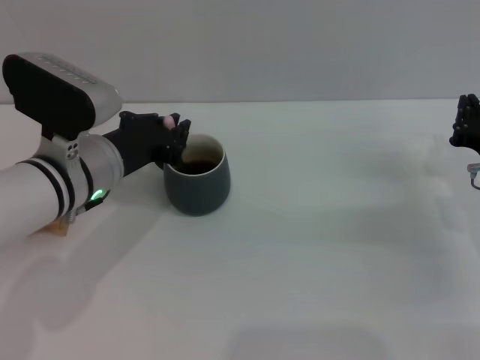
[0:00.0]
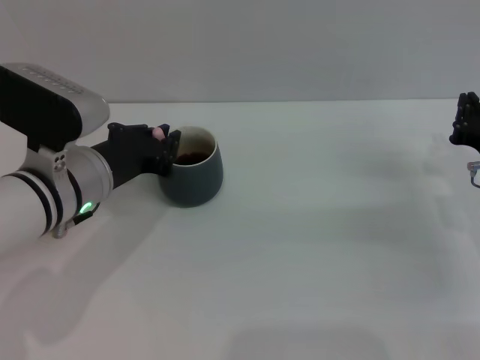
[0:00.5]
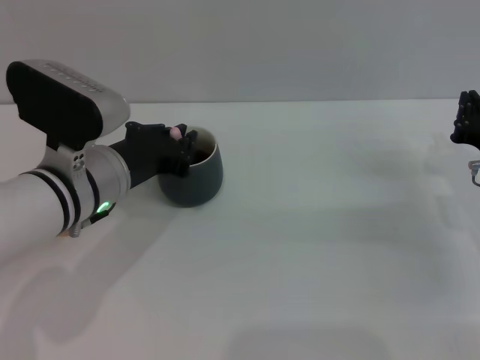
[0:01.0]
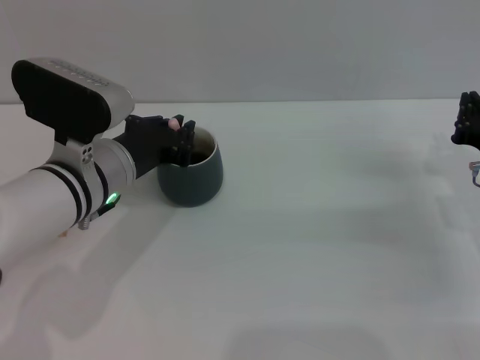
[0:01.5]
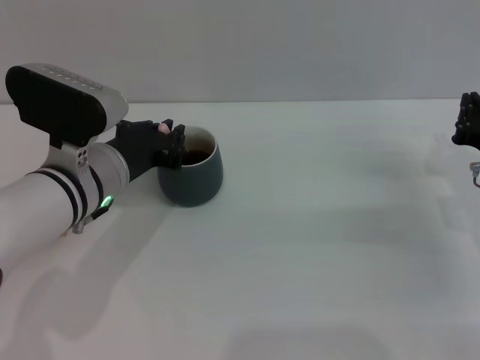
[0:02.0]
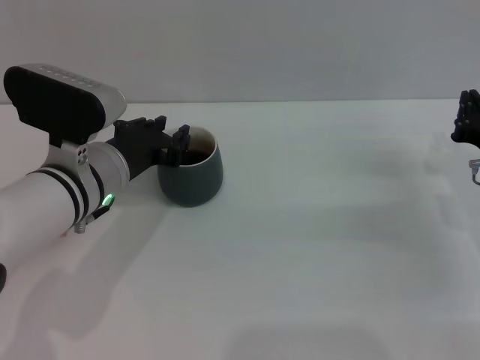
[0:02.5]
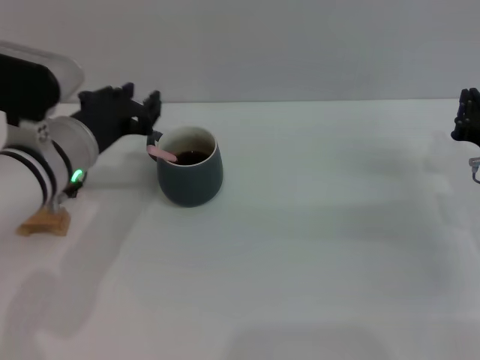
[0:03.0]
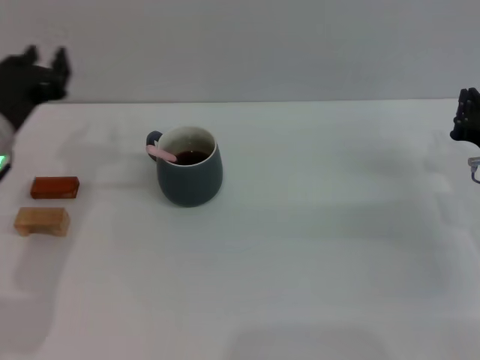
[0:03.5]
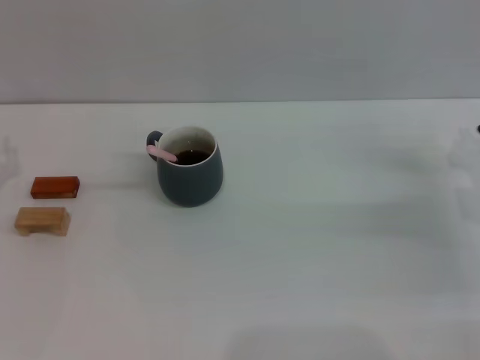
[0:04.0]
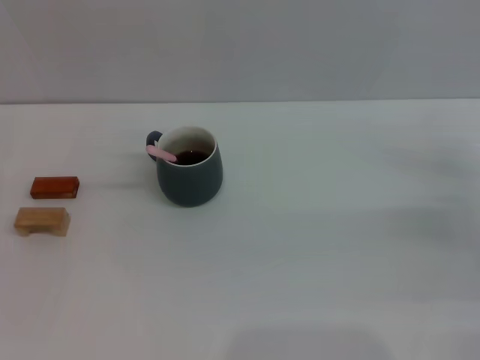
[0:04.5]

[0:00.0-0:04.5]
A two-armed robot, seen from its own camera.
Task of the whole recording: Move the grey cup to the center, lift the pink spoon, stir it three times in the cup, and put the spoon into the cup.
Step, 0:00.0 to 0:02.5: Stir the coffee in the cup with the left gripper.
0:00.0 to 0:02.0: The grippers move only a little.
0:02.0 to 0:04.5: The right gripper heads to the right, covering about 5 cm; the left gripper shifts roughly 20 cm to the left, and opens.

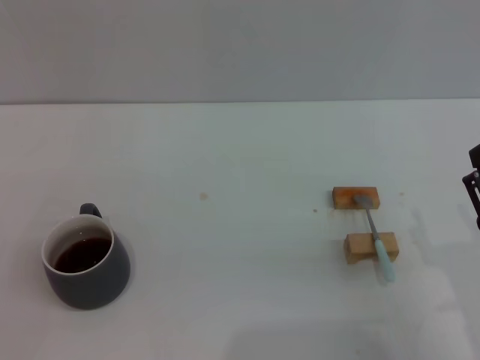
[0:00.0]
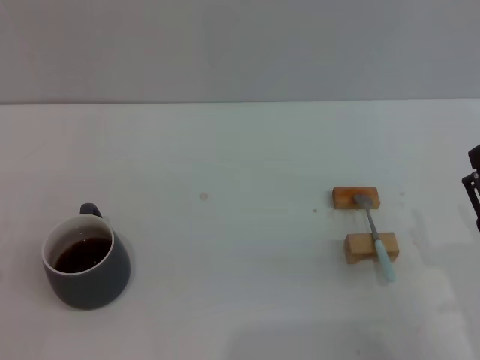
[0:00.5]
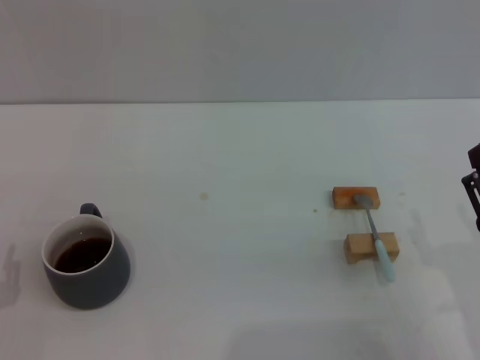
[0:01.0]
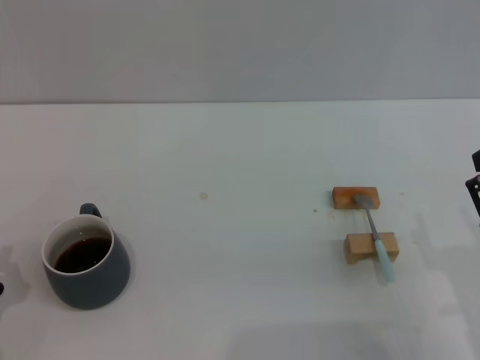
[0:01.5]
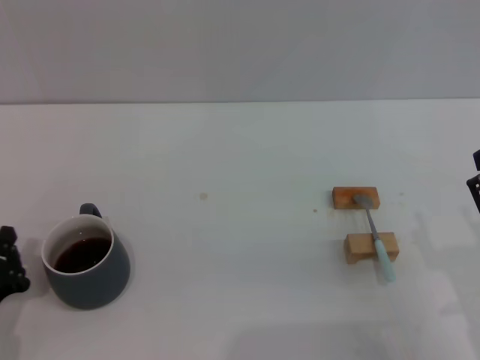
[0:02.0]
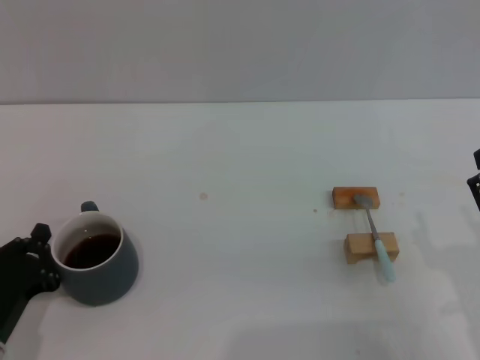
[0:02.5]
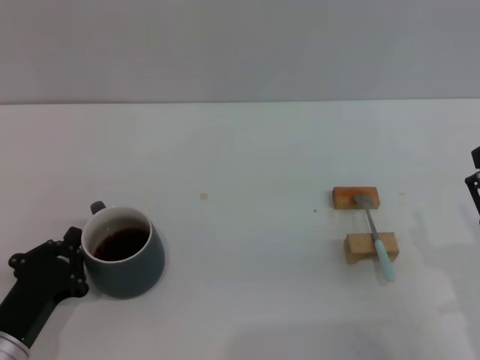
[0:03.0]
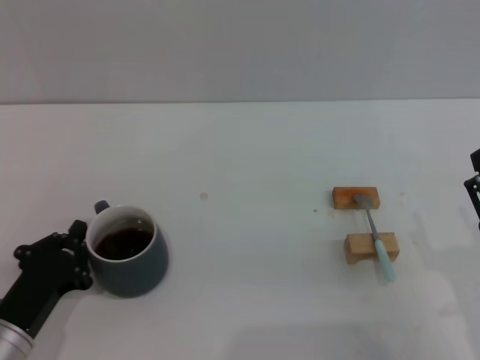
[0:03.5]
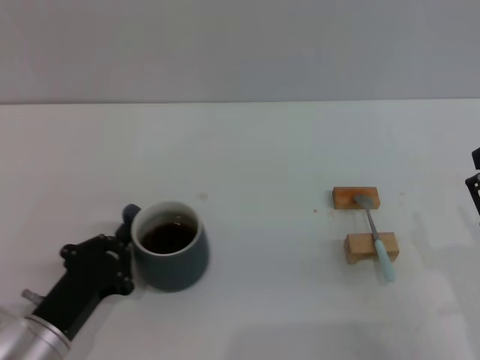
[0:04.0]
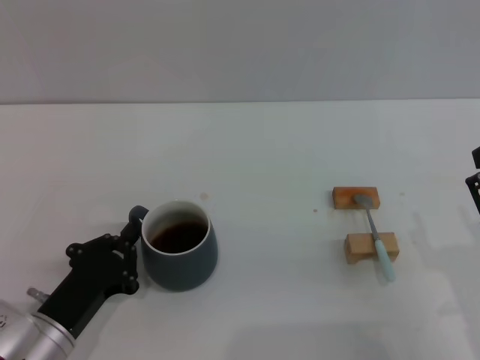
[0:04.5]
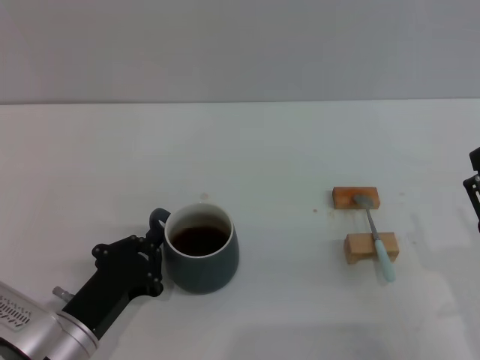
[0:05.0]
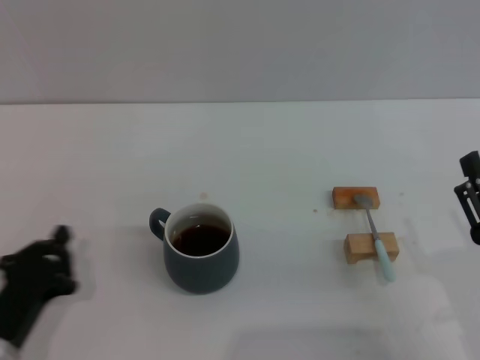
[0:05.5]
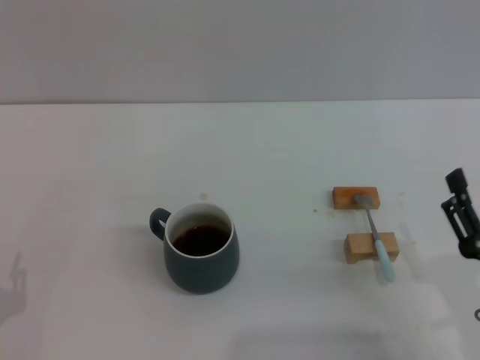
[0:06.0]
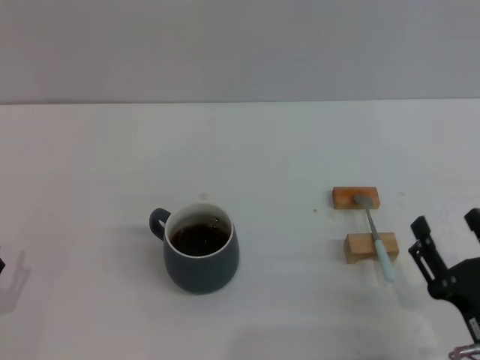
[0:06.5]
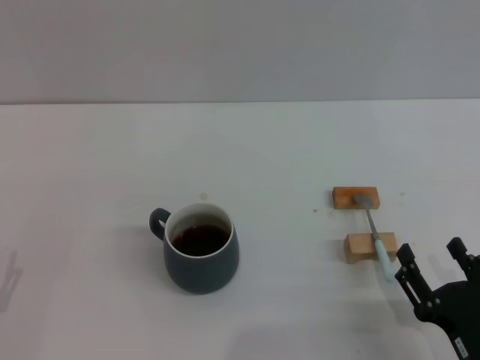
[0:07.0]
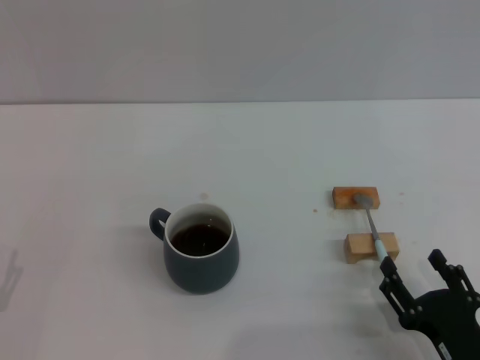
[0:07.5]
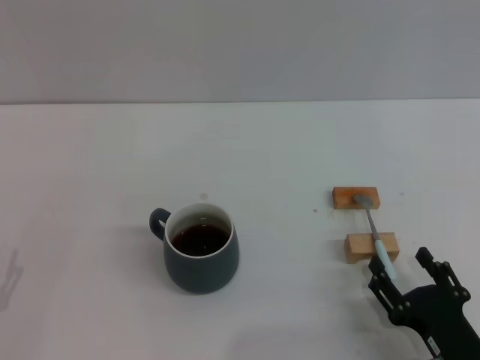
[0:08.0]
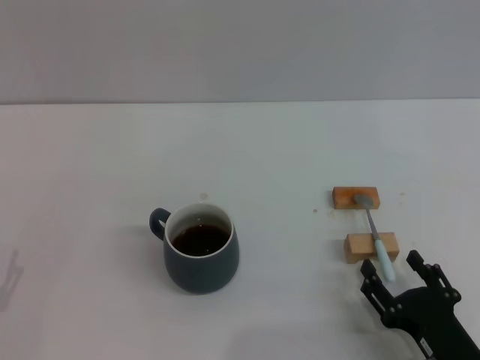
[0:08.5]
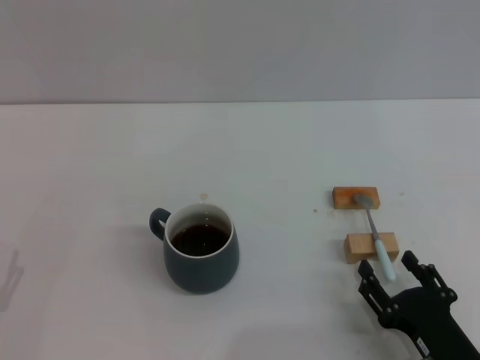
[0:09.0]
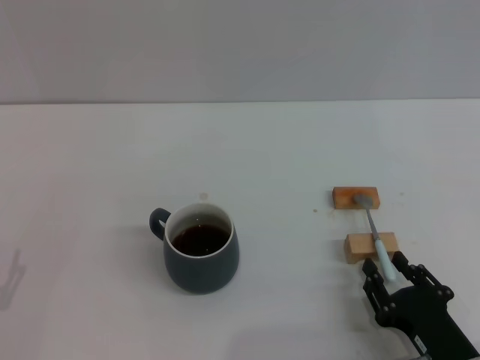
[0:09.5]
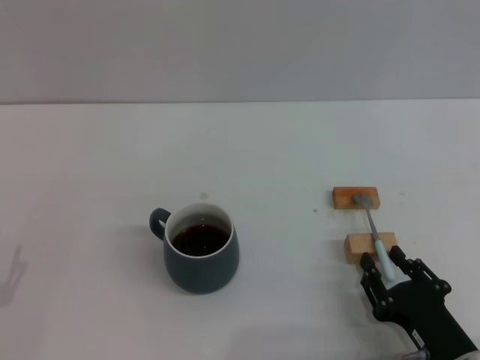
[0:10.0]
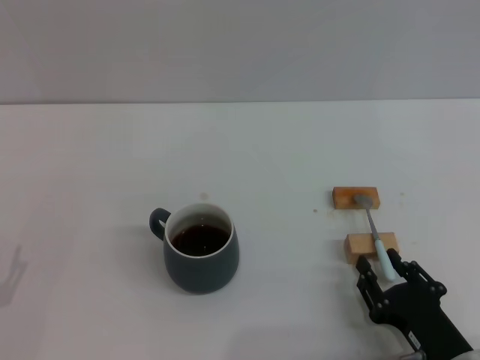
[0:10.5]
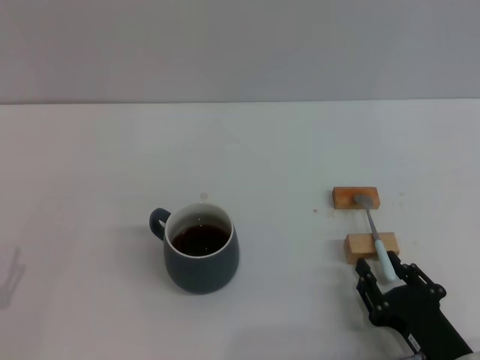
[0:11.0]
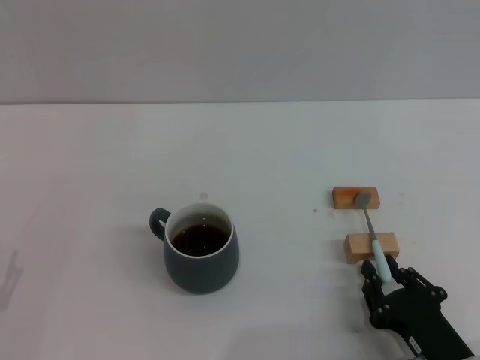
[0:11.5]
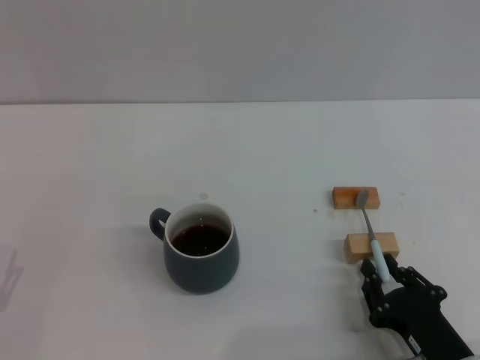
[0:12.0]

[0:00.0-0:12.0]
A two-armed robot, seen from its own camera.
Task of the whole recording: Move the grey cup to the center, lift the blue spoon, stir it three times in the cup, and put the spoon into the cup.
Step, 0:00.0 to 0:05.5: Move the cup with coffee to the center of view with the left gripper.
0:00.0 to 0:02.0: The left gripper moves forward, some 5 cm, and closes up.
0:02.0 to 0:04.0: The left gripper moves to the right, some 5 cm.
0:04.0 to 0:06.0: The left gripper goes approximately 10 cm to the left and backward.
0:06.0 to 0:08.0: The right gripper moves downward, some 5 cm.
0:08.0 to 0:10.0: The right gripper closes its fingers.
0:10.0 to 0:12.0: Both grippers stay about where they are.

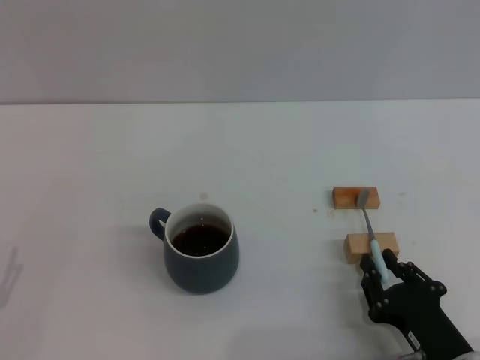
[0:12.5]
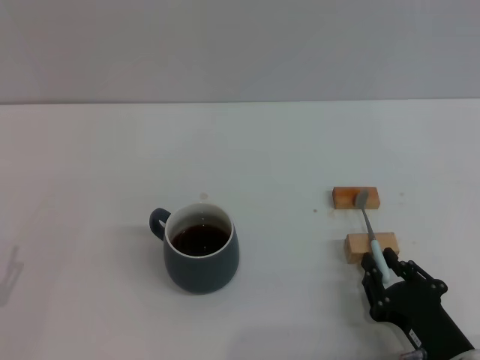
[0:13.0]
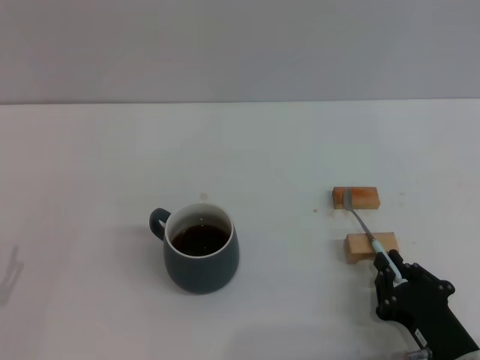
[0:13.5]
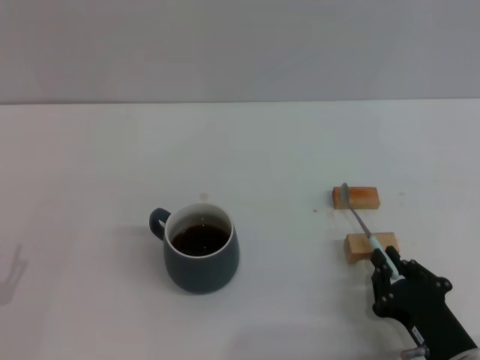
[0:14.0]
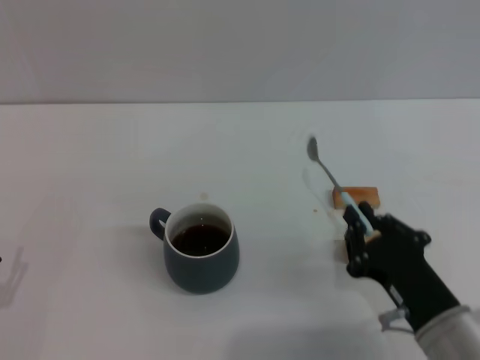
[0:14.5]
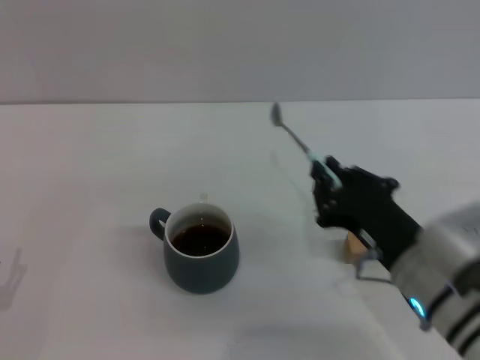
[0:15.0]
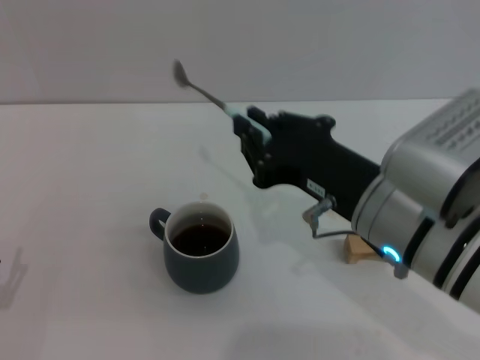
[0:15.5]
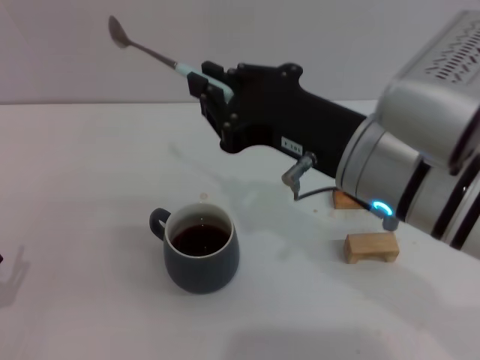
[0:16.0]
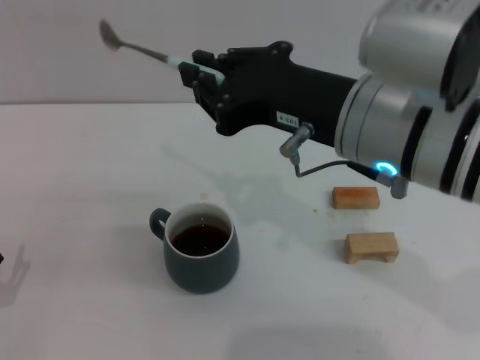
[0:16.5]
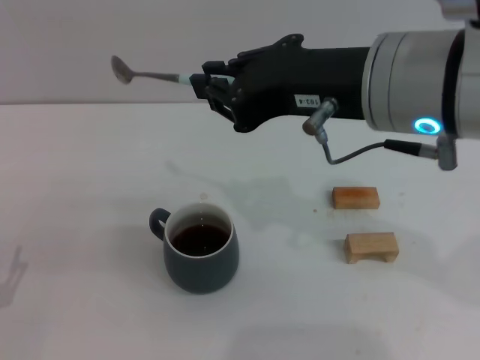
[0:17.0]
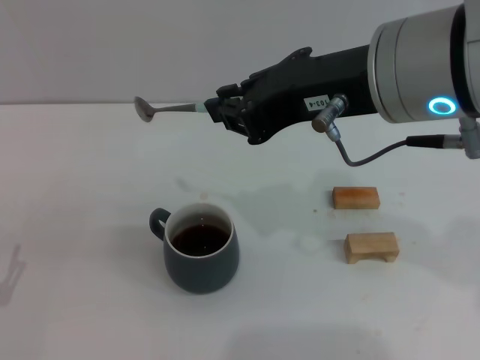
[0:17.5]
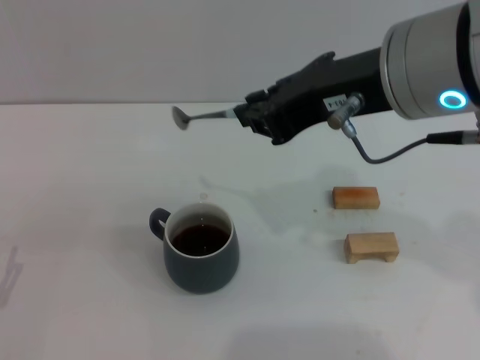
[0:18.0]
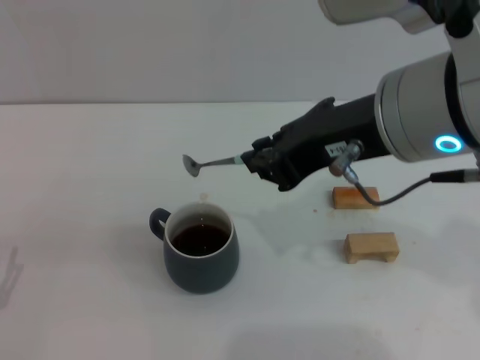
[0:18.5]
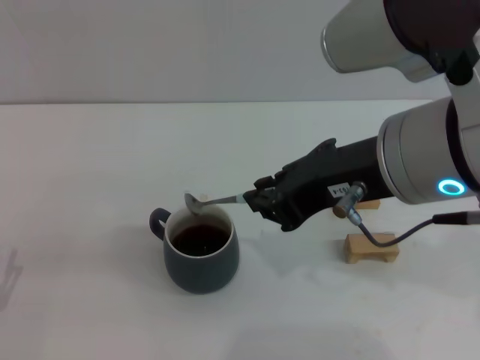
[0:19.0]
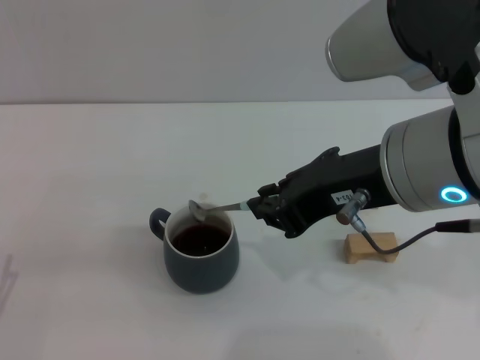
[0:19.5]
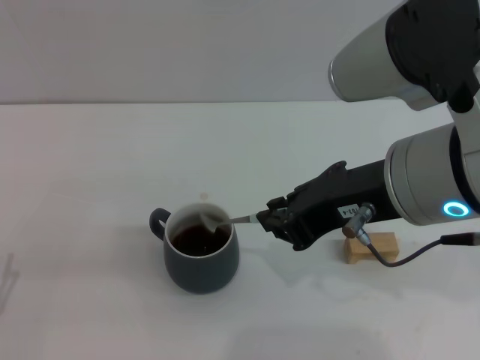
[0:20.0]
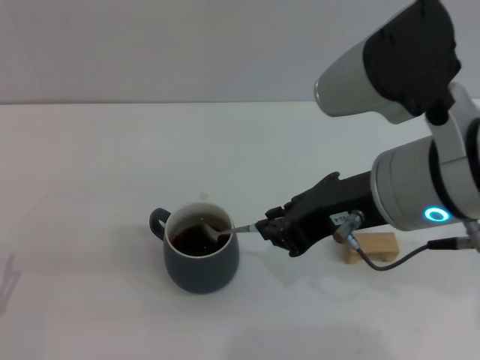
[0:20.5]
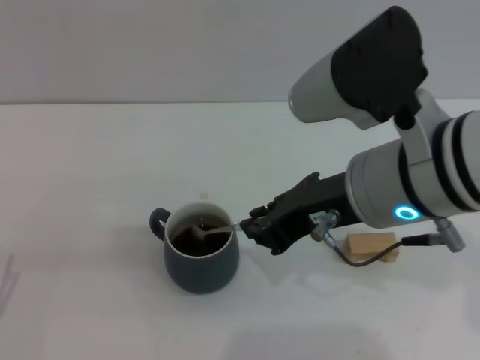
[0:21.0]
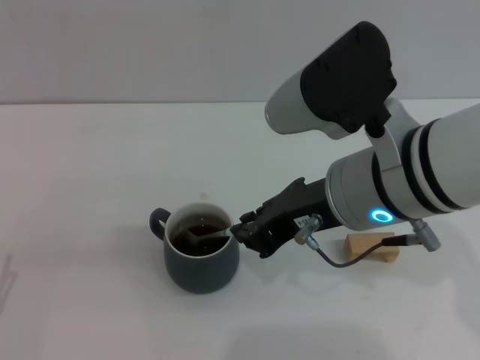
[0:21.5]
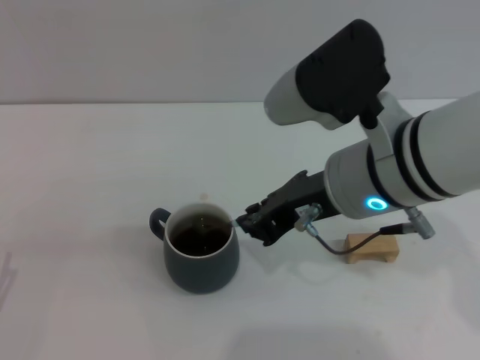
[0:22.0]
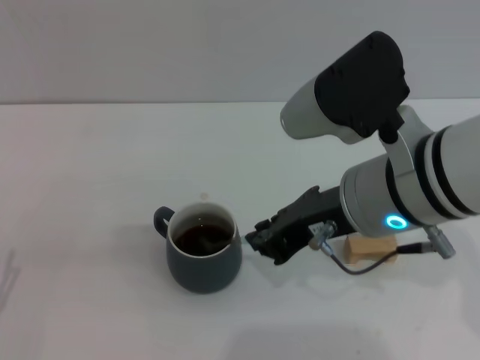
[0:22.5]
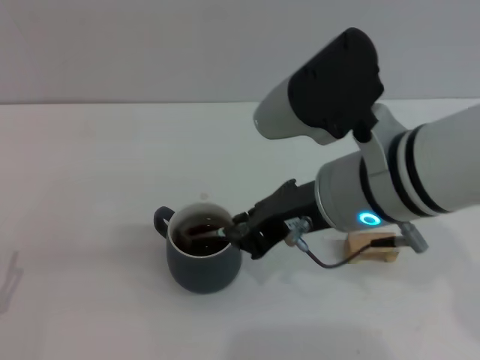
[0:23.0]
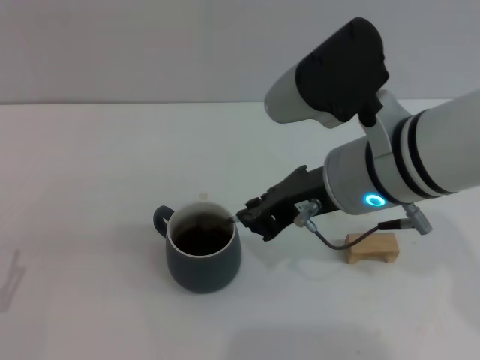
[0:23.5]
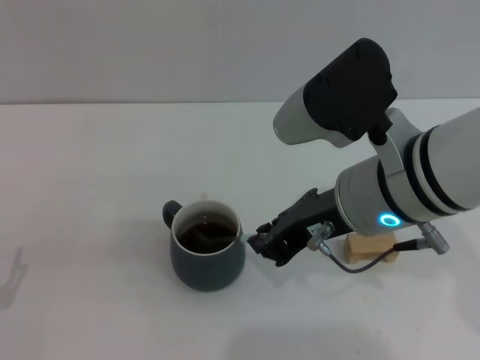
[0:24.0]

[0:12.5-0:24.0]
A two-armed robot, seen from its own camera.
Task of the whole recording: Move the grey cup to the center, lift the blue spoon, stir it three times in the cup, and put the spoon into the cup.
Step, 0:12.5 to 0:14.5: Pick up the spoon with the right gripper.
0:12.5 to 0:14.5: The right gripper shifts some 5 cm upward.
0:14.5 to 0:16.5: The right gripper travels upward by about 20 cm.
0:20.0 to 0:22.0: The right gripper moves downward, about 5 cm.
0:22.0 to 0:24.0: The grippers make only small movements.
